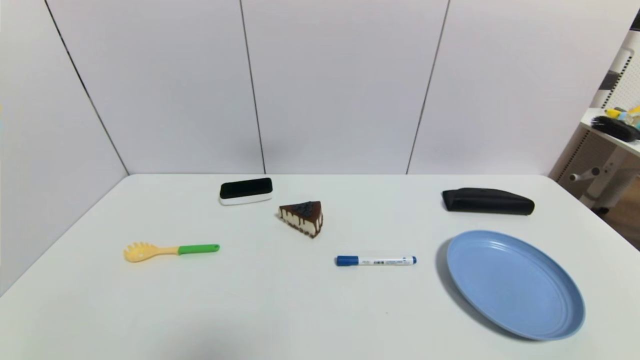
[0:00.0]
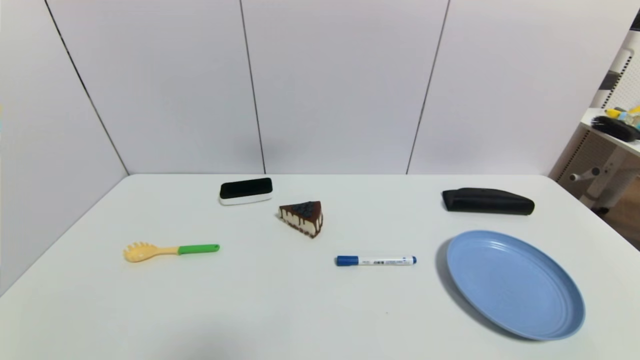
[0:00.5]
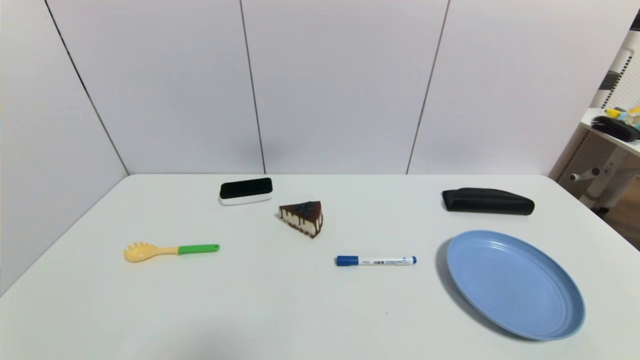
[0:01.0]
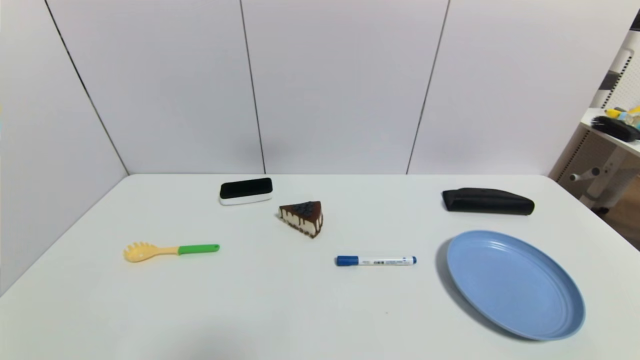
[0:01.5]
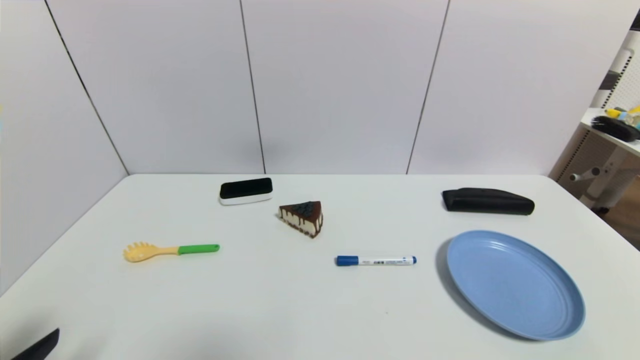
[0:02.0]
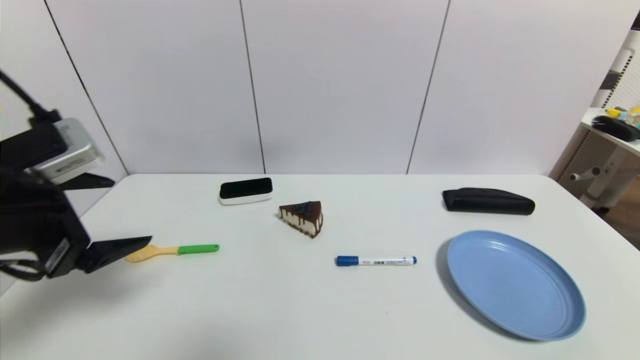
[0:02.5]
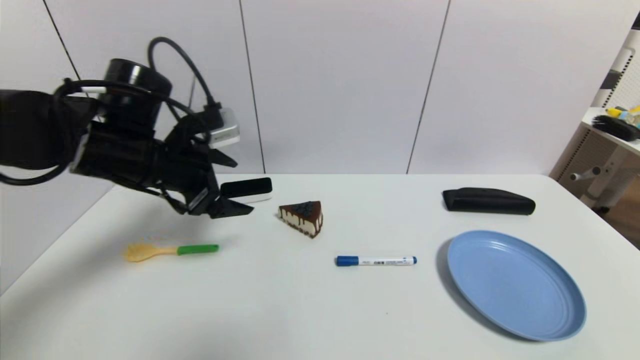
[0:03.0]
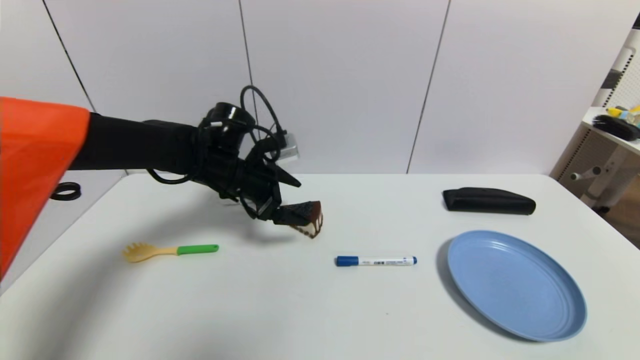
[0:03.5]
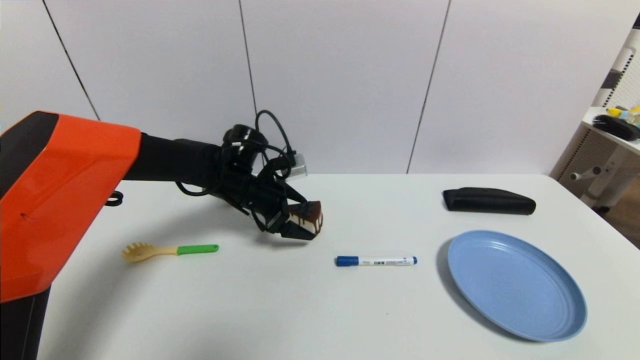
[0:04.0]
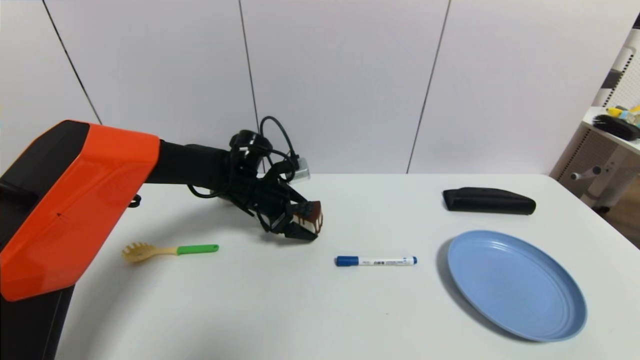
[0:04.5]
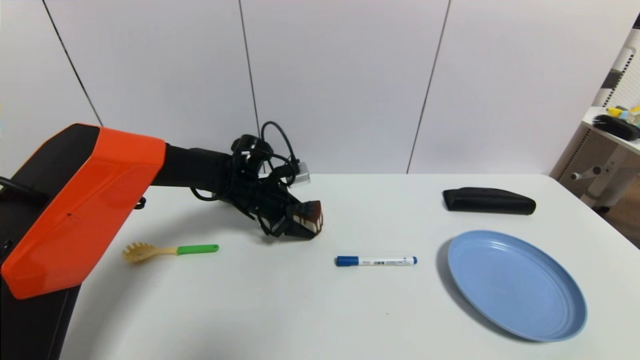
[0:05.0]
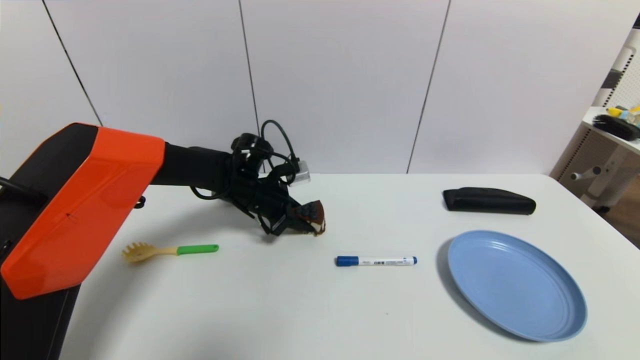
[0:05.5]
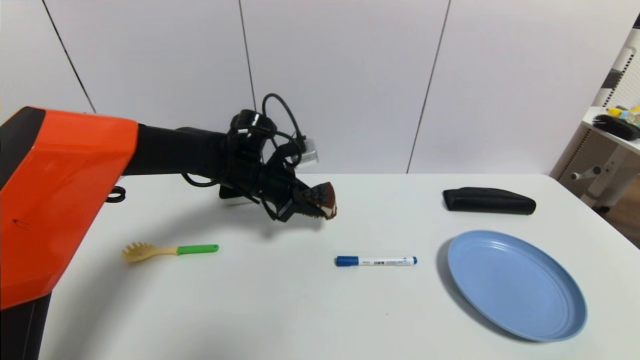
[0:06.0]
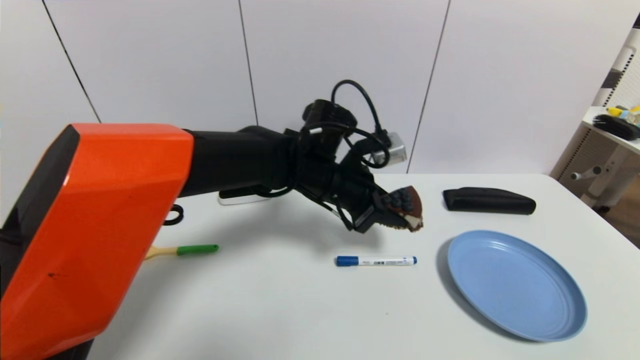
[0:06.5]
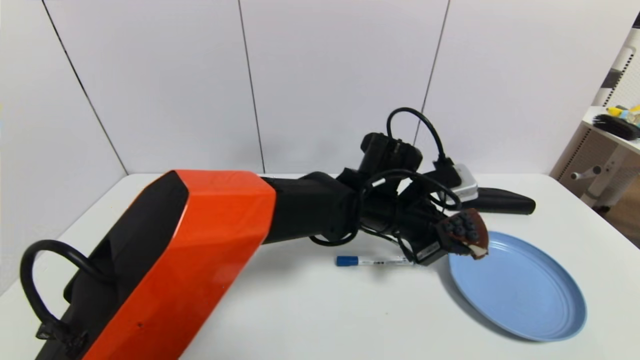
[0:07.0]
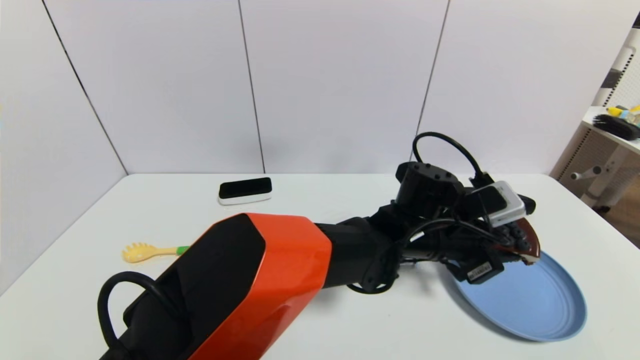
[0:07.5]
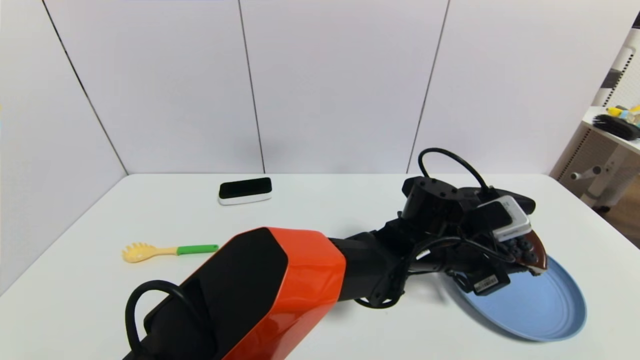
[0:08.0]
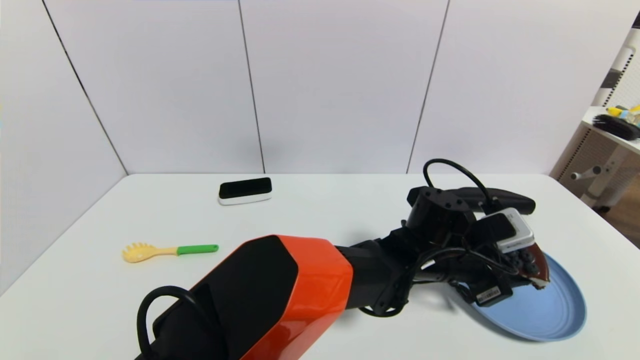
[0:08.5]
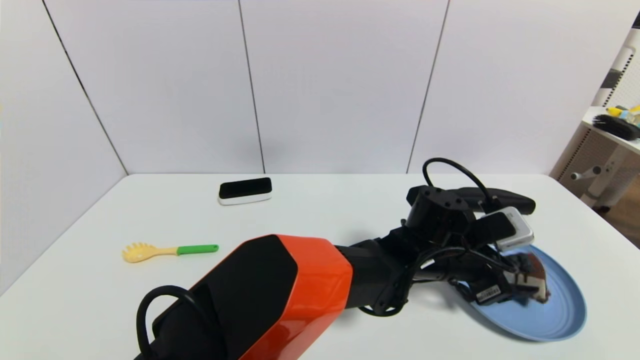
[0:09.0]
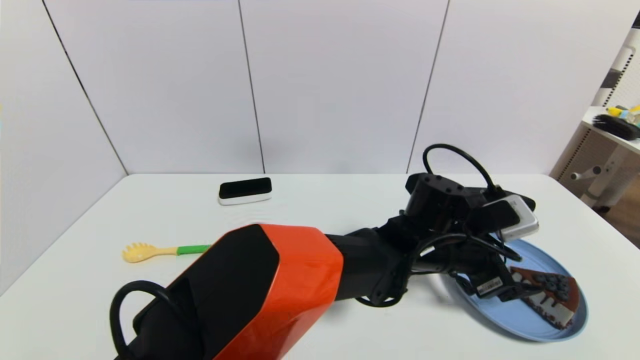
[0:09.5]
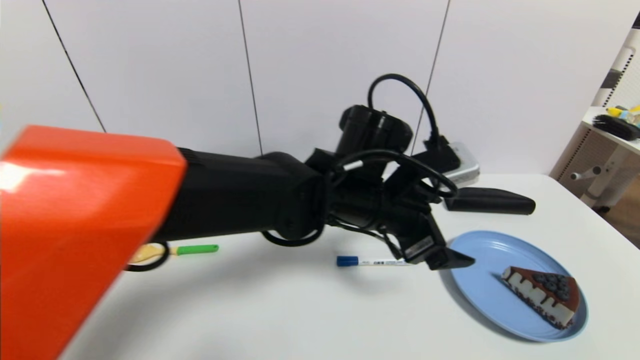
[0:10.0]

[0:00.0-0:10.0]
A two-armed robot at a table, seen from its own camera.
Task of the whole recording: use a gripper to pick the target object and place on the blue plate.
Step, 0:00.0 to 0:05.0: Grasp the chocolate cake with the left gripper.
Step, 0:05.5 to 0:08.5: Place the chocolate cake on the blue plate with the left gripper.
0:00.0 to 0:02.0: The left gripper heads upward, covering some 10 cm.
0:02.0 to 0:04.0: The left gripper travels forward and to the right by roughly 40 cm.
0:04.0 to 0:06.0: The left gripper closes.
0:06.0 to 0:08.0: The left gripper travels to the right and backward by about 30 cm.
0:08.0 to 0:10.0: The left gripper travels to the left and upward by roughly 15 cm, and opens its fingers.

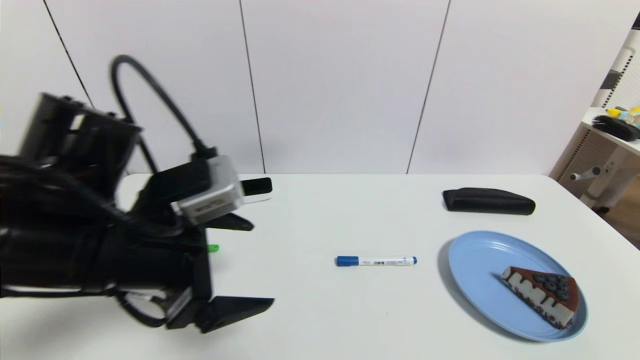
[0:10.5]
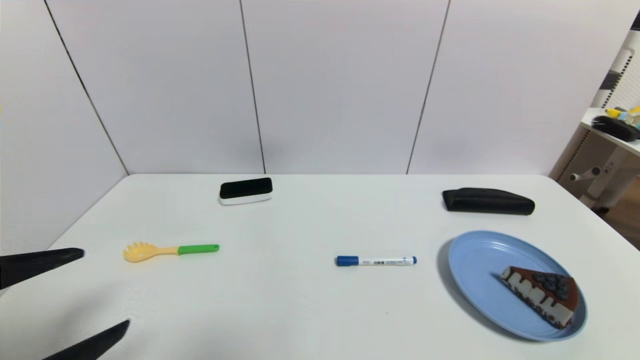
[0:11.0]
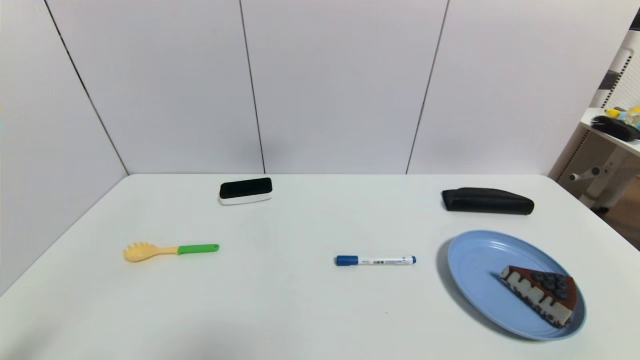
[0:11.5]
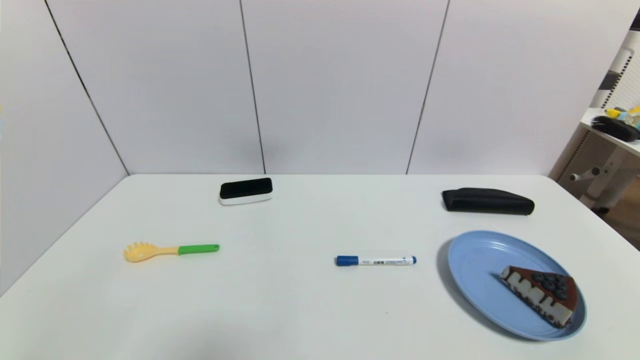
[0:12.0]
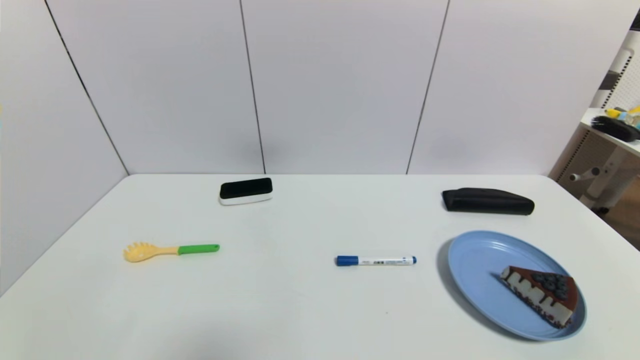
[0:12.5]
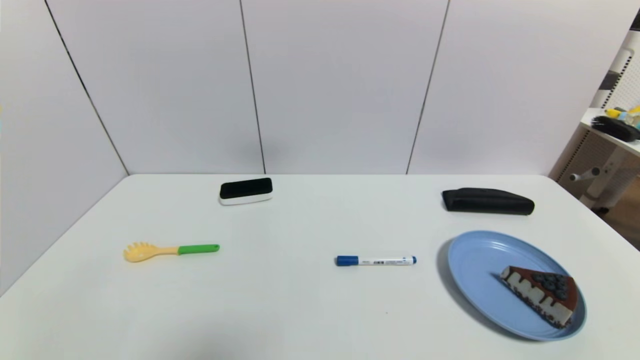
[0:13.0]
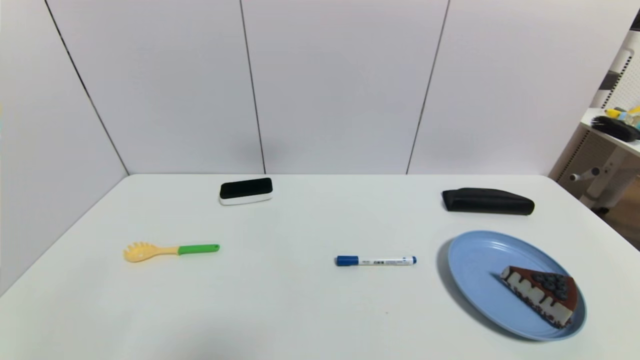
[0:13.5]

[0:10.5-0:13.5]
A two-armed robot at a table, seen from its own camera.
Task of the whole recording: use a gripper to pick the target object and place on the blue plate.
0:10.5 to 0:12.0: The left gripper is displaced backward, downward and to the left by approximately 25 cm.
